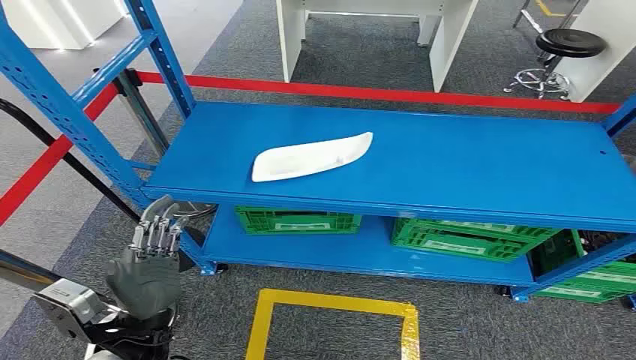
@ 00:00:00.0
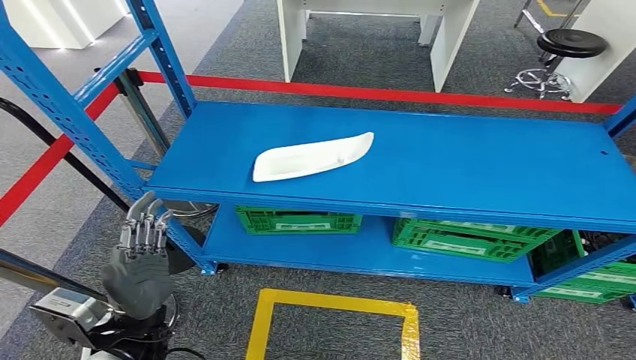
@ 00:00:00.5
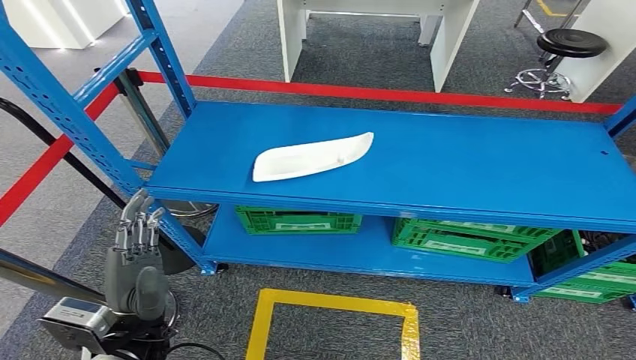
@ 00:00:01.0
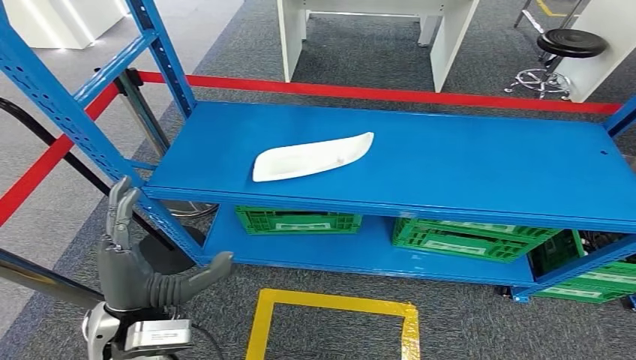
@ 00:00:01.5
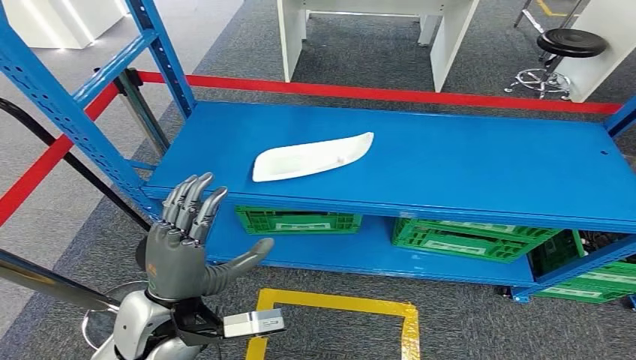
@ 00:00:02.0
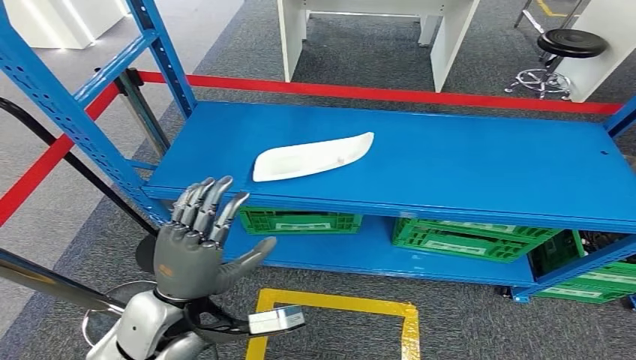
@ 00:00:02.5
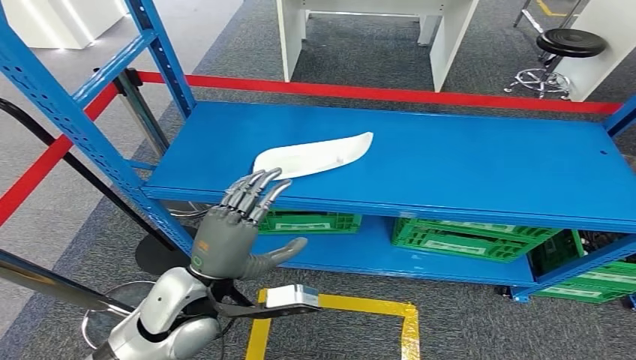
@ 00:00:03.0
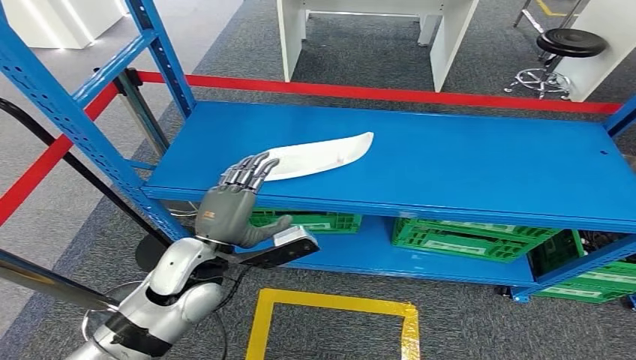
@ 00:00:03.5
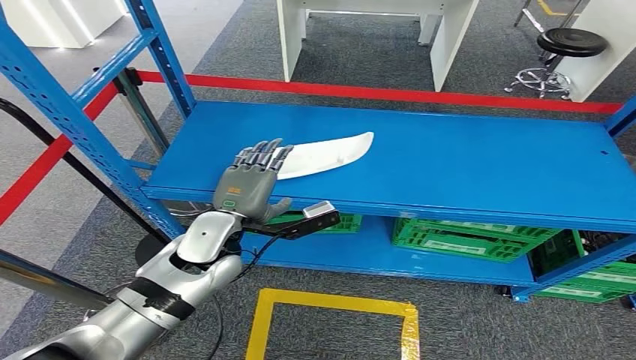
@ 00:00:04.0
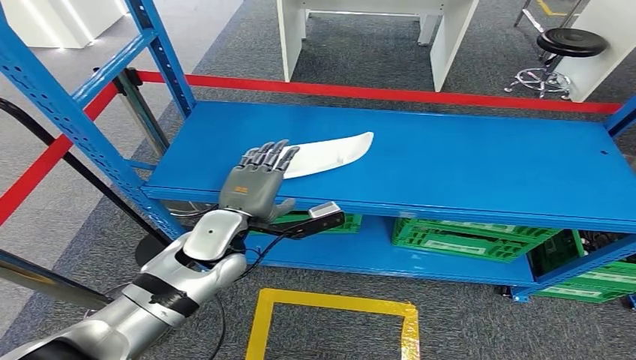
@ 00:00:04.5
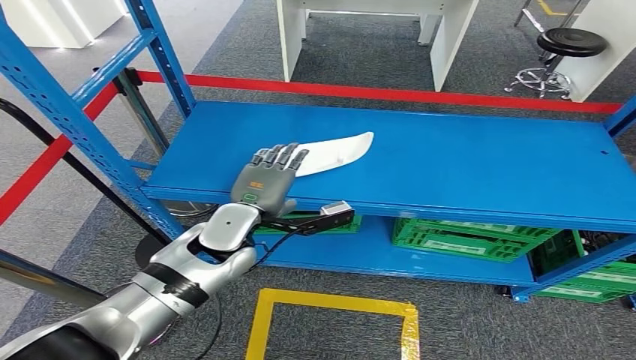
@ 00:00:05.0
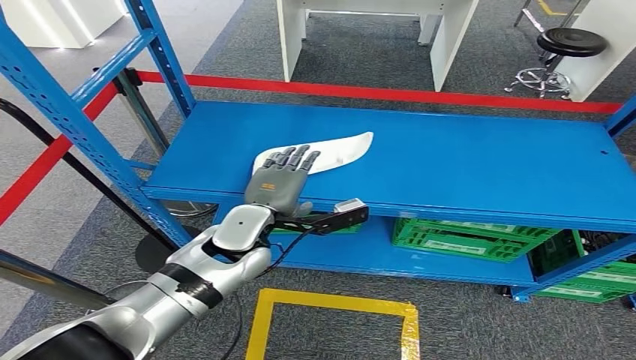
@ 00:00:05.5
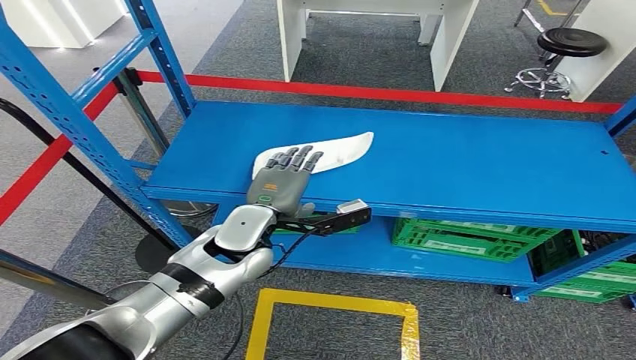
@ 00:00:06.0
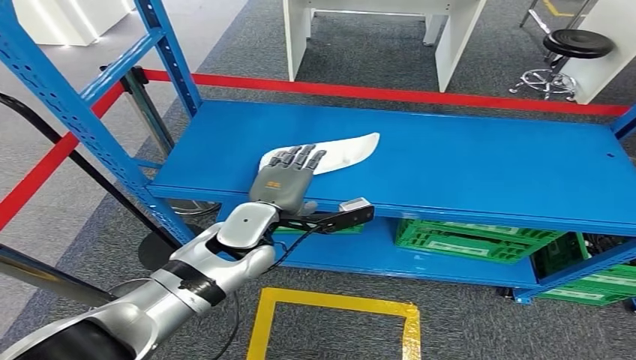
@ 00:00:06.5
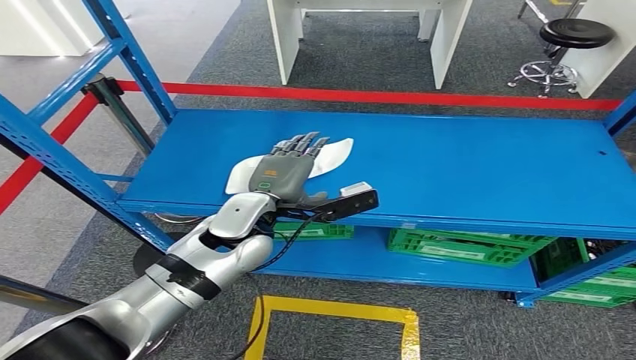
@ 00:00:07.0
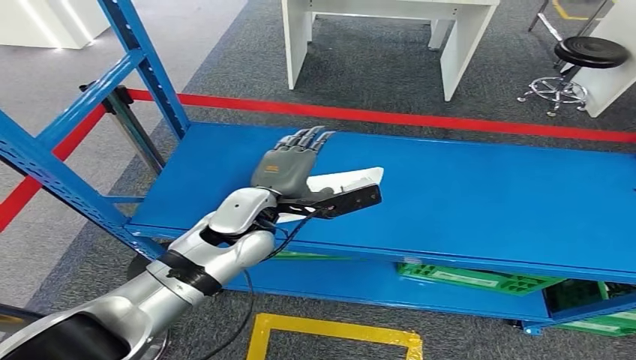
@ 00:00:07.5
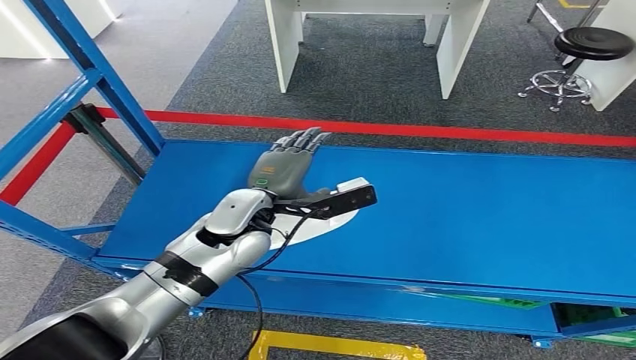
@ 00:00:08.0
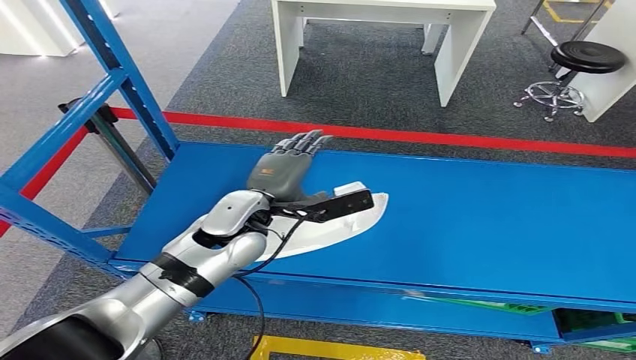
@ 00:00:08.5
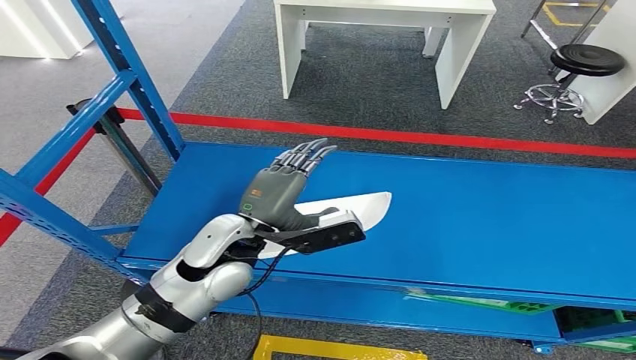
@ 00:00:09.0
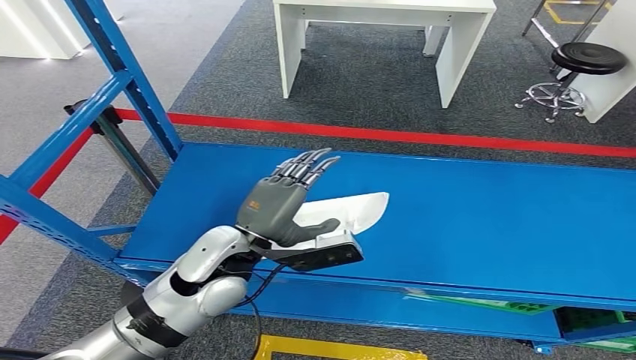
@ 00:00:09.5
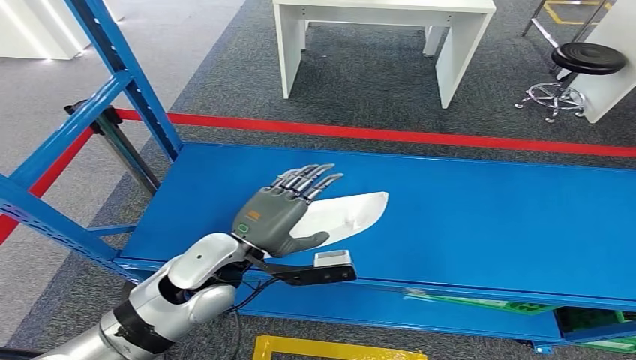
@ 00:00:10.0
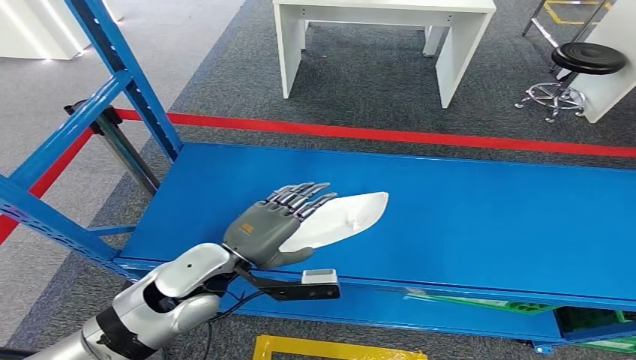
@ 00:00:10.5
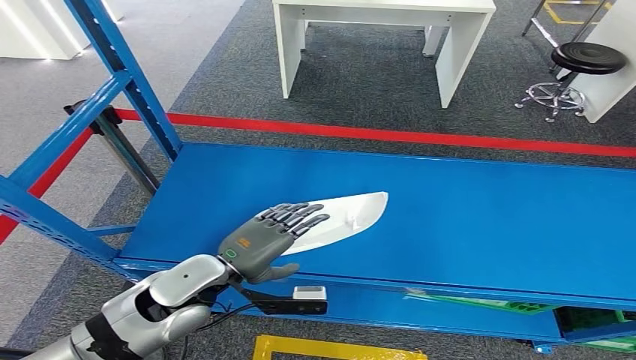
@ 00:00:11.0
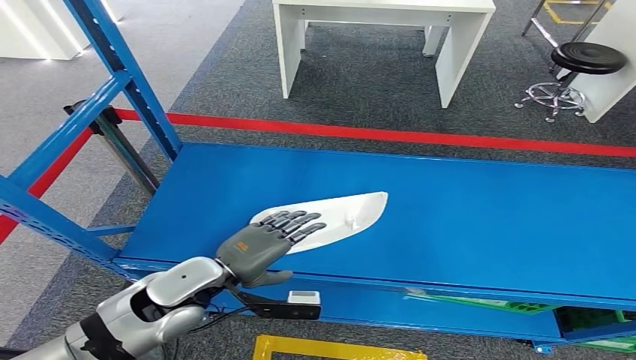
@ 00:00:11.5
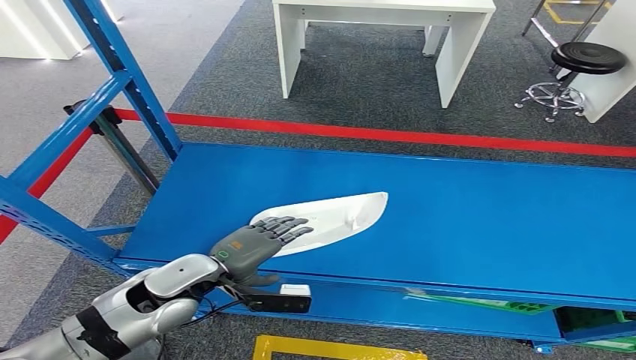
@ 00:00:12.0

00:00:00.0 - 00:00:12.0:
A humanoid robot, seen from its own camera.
00:00:02.0 - 00:00:04.0: The left hand goes about 10 cm forward.
00:00:04.0 - 00:00:06.0: The hands move only a little.
00:00:10.0 - 00:00:12.0: The left hand goes some 10 cm to the left and downward.

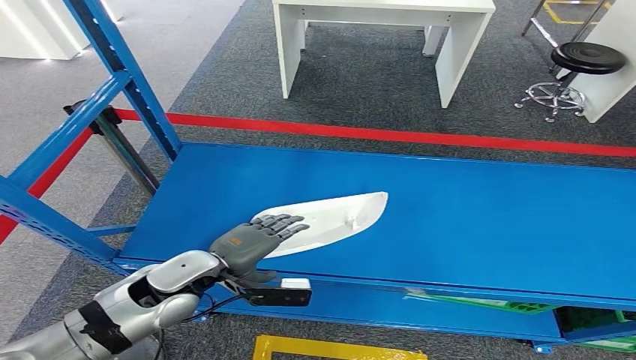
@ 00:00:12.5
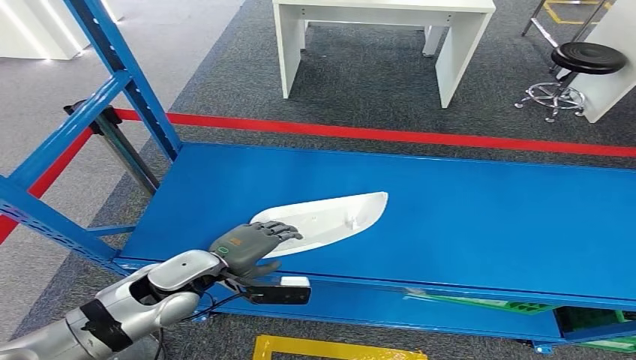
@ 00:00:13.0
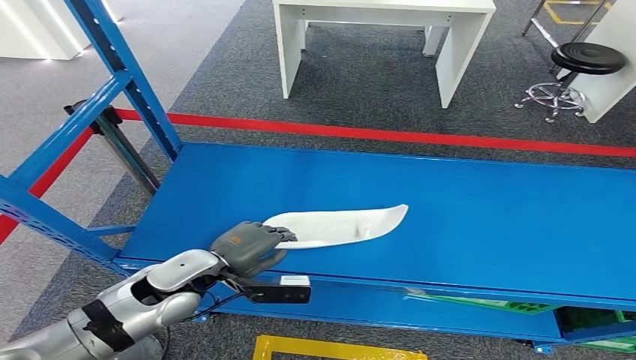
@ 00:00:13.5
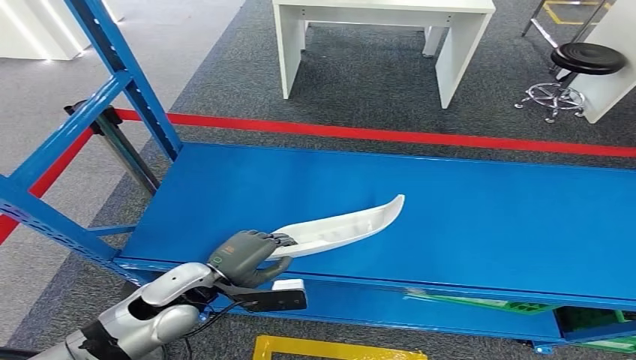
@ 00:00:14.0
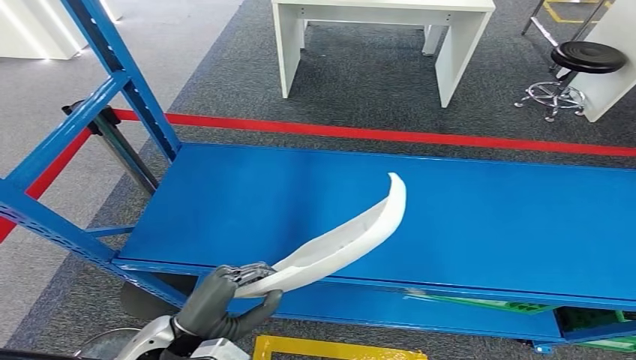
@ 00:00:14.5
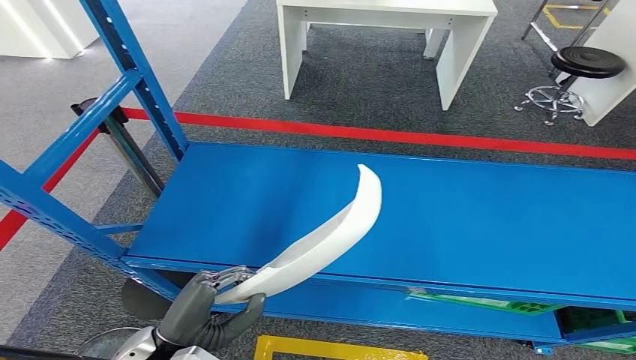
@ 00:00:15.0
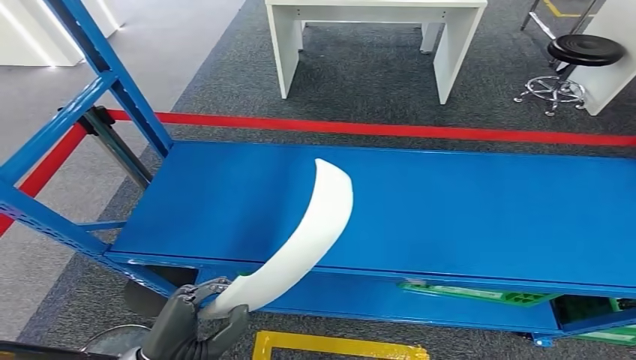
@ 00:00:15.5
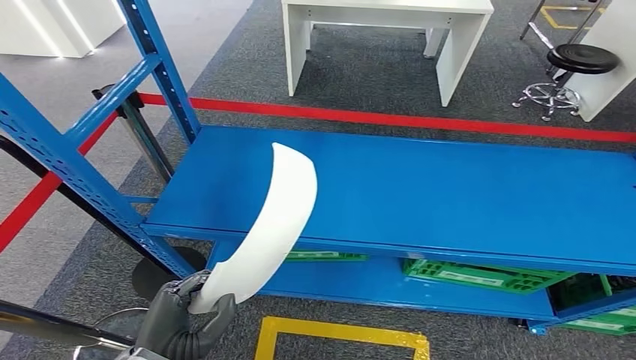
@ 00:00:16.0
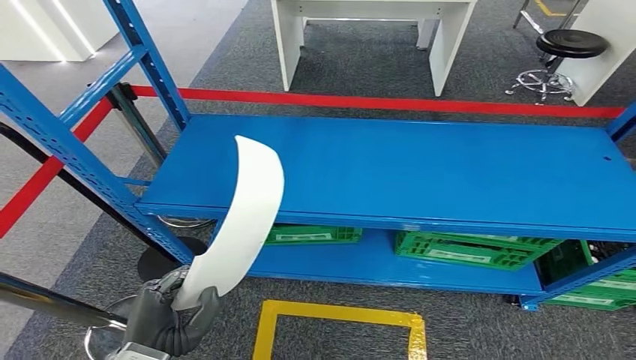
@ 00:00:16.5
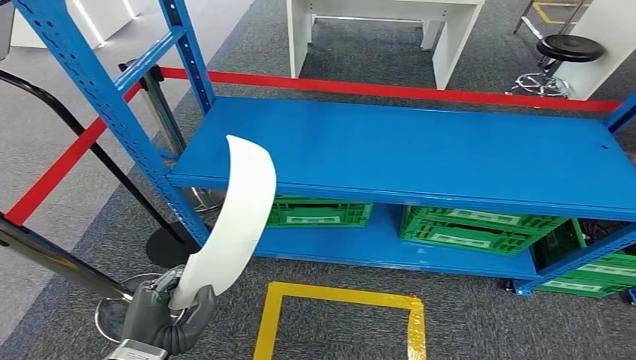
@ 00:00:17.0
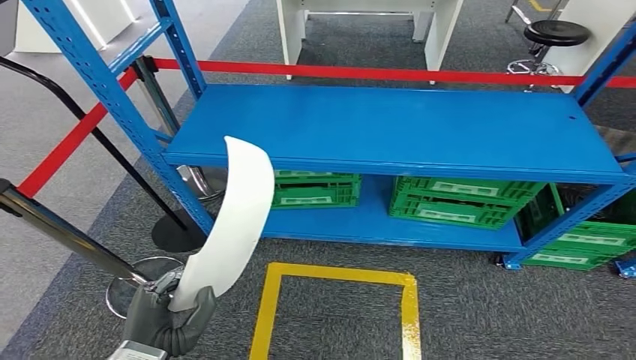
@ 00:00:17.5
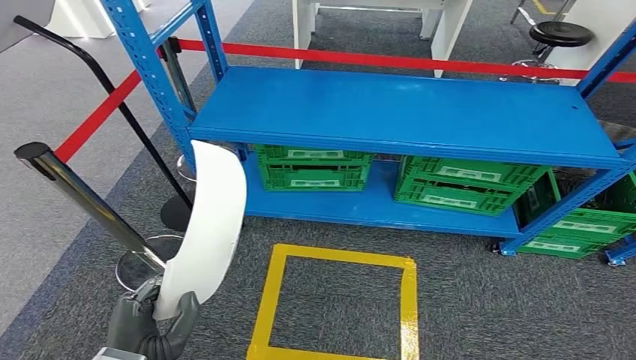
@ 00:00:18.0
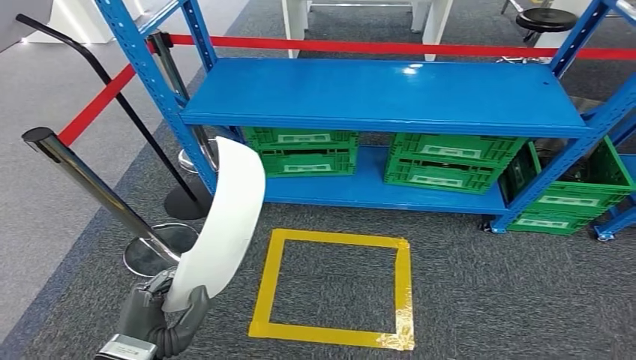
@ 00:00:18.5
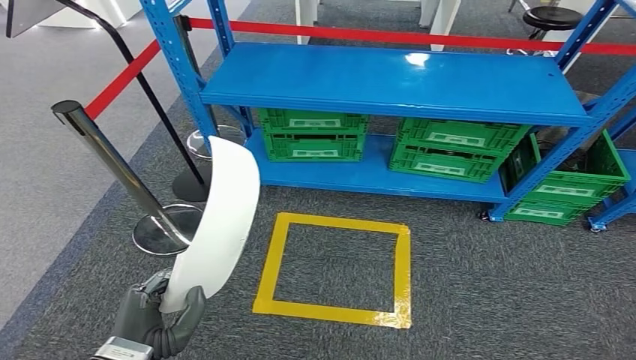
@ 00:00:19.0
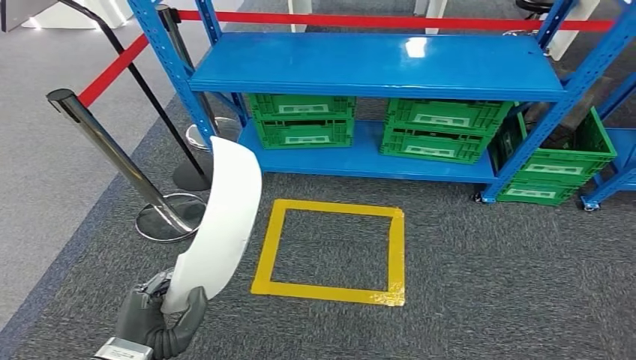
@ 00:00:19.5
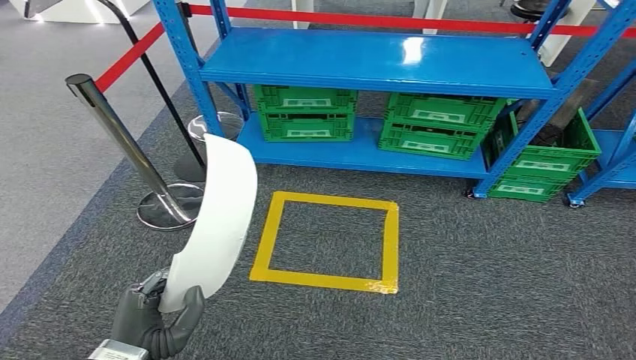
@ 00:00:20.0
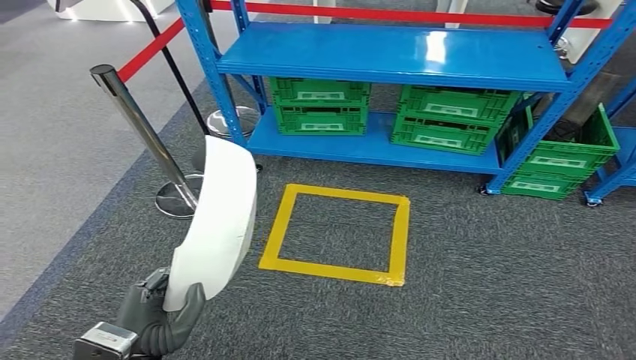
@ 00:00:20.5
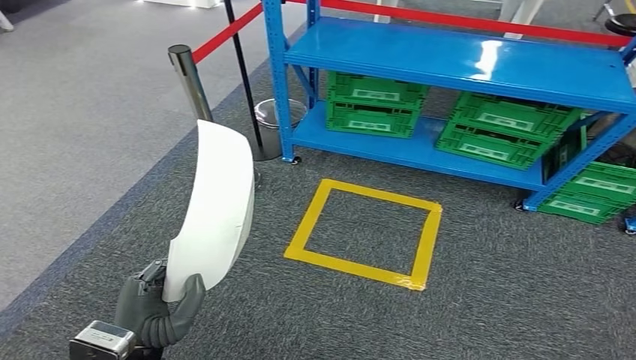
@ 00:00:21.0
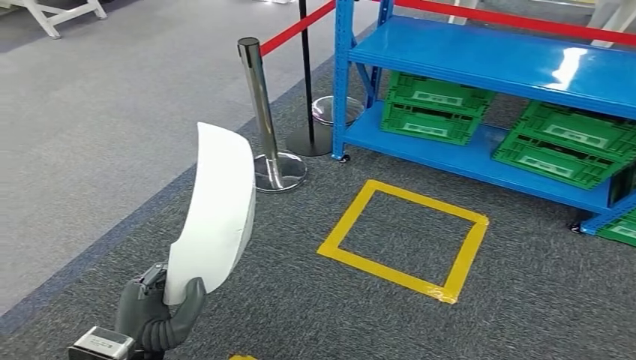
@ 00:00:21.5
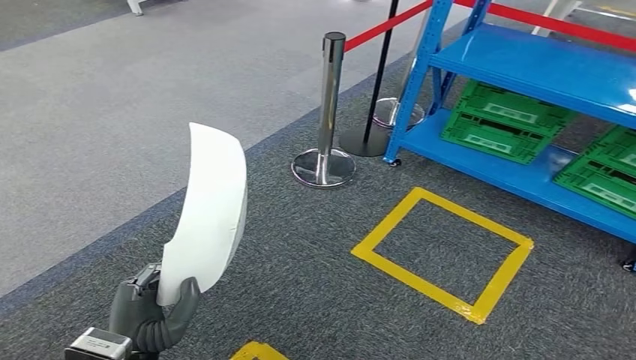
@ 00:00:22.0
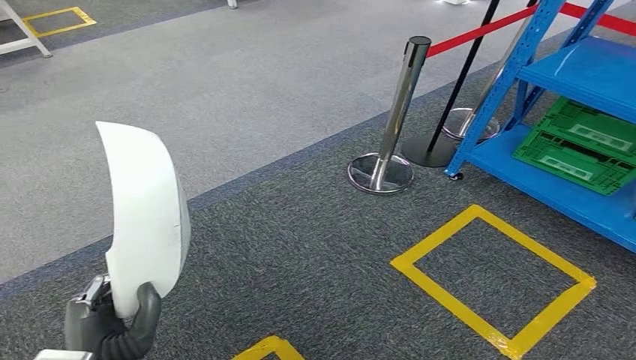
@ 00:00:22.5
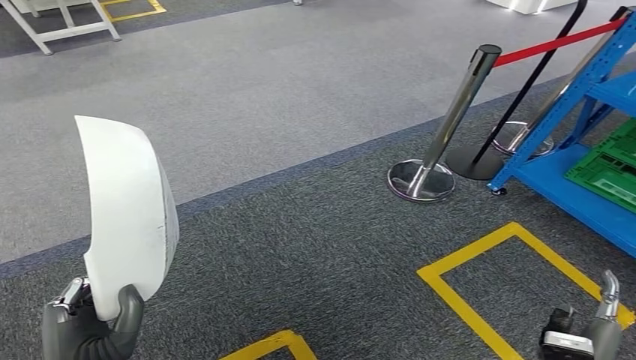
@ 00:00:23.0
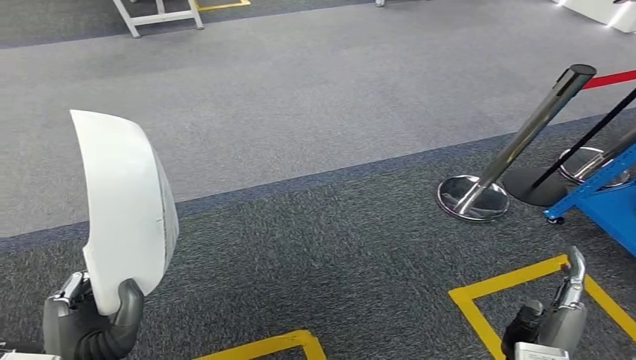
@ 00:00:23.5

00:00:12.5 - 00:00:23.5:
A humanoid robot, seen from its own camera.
Step, 00:00:12.5 - 00:00:14.5: Take small components from the rack.
00:00:12.5 - 00:00:14.5: The left hand shifts approximately 10 cm backward.
